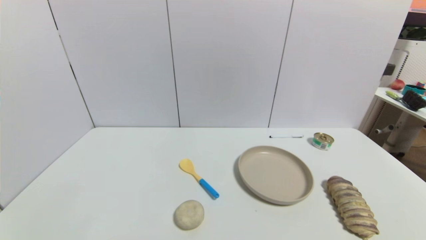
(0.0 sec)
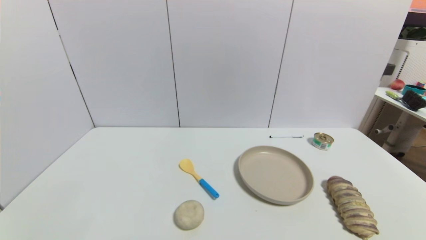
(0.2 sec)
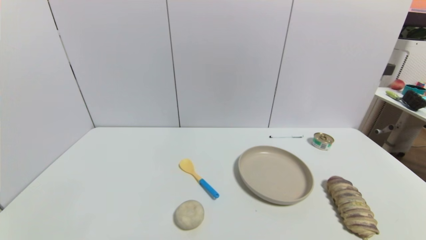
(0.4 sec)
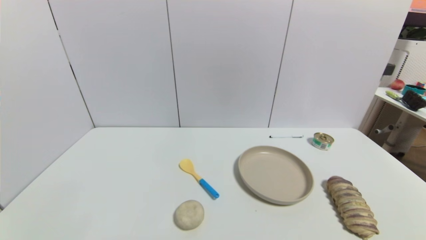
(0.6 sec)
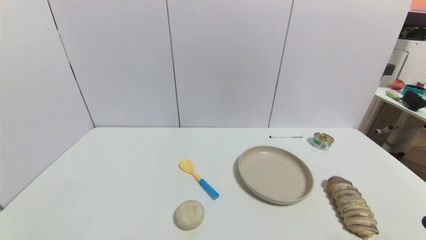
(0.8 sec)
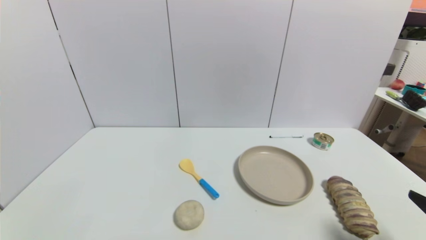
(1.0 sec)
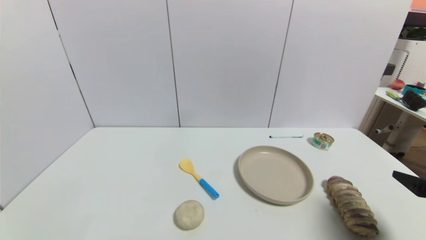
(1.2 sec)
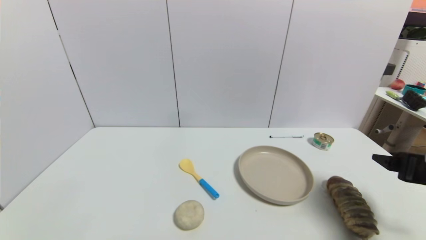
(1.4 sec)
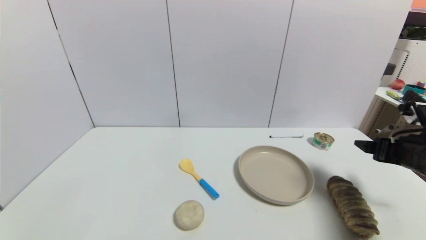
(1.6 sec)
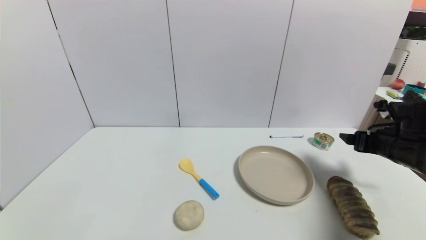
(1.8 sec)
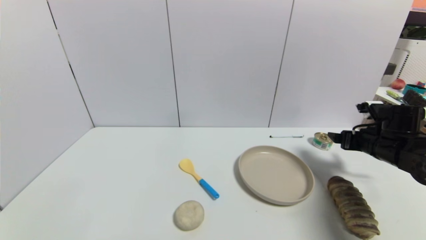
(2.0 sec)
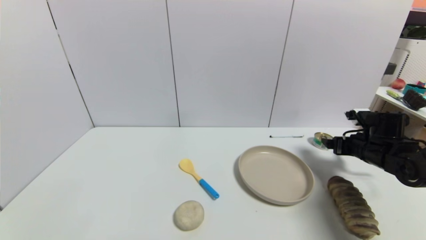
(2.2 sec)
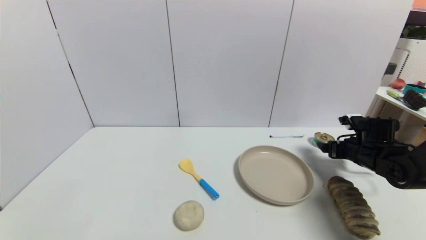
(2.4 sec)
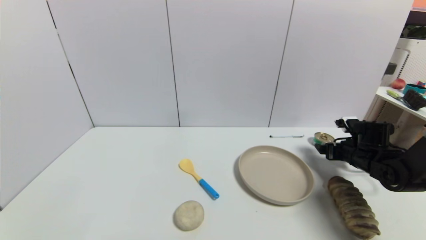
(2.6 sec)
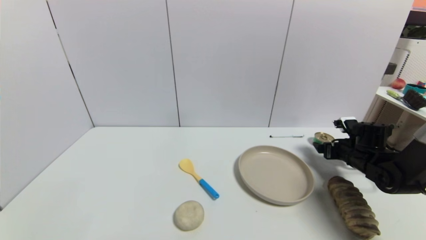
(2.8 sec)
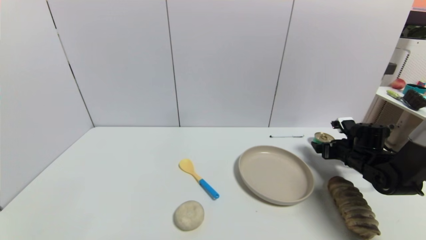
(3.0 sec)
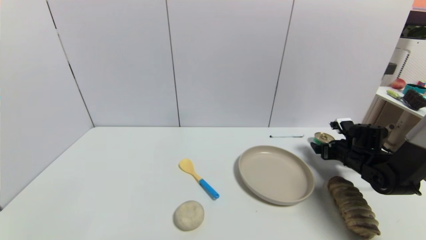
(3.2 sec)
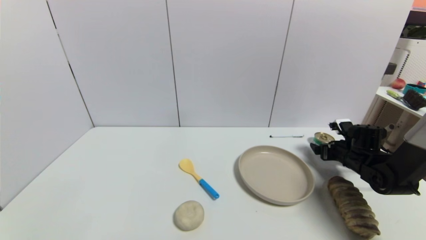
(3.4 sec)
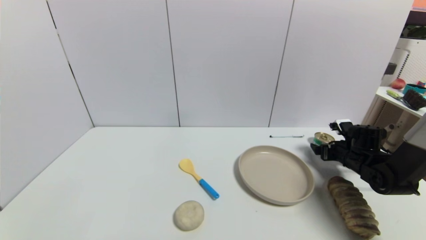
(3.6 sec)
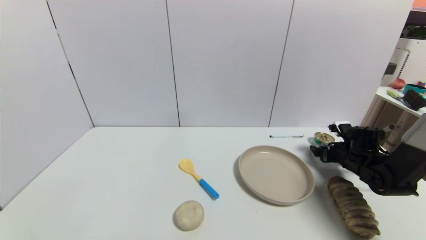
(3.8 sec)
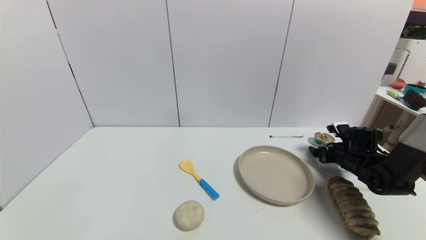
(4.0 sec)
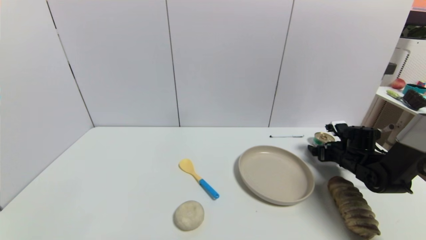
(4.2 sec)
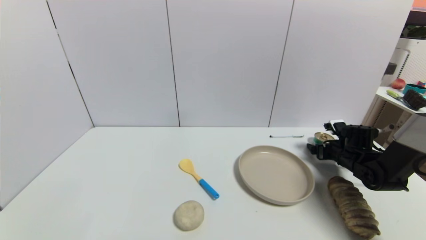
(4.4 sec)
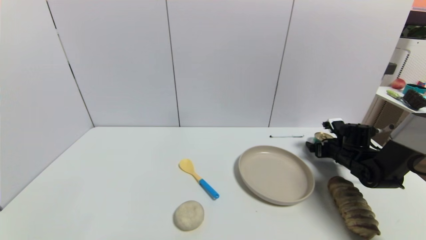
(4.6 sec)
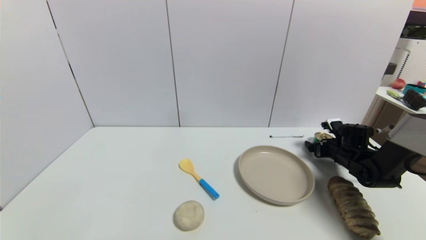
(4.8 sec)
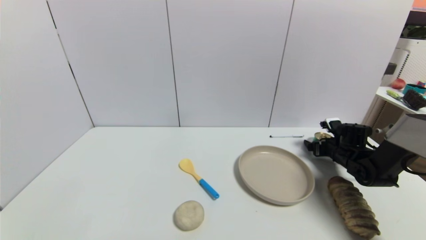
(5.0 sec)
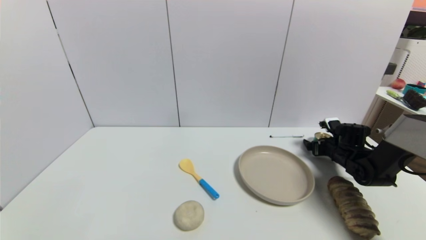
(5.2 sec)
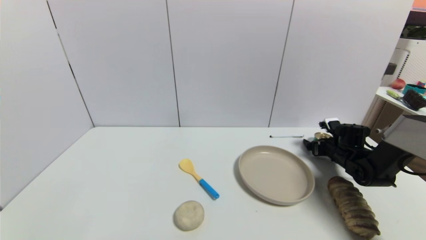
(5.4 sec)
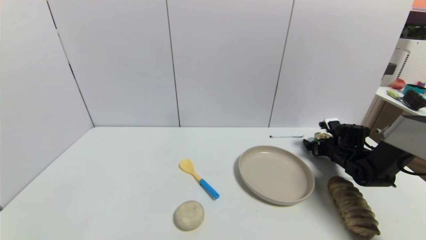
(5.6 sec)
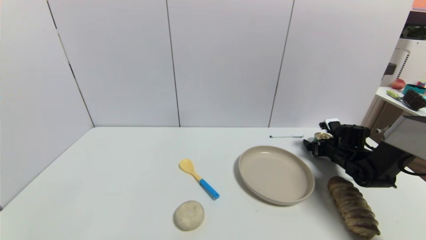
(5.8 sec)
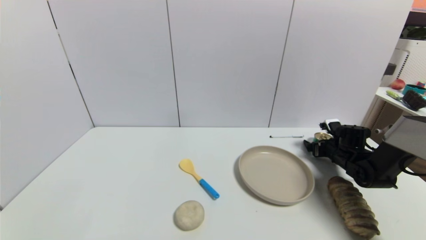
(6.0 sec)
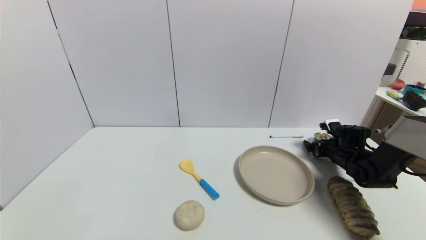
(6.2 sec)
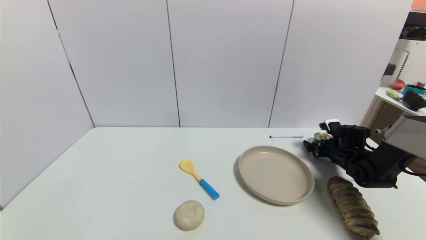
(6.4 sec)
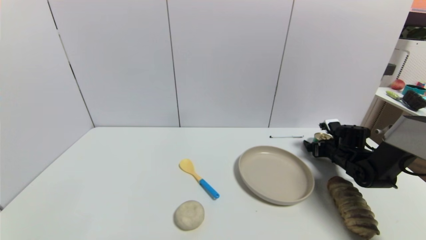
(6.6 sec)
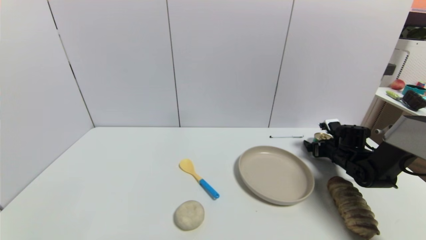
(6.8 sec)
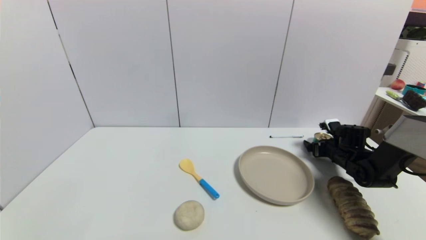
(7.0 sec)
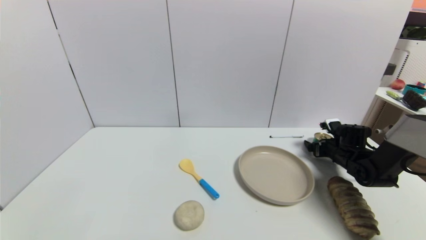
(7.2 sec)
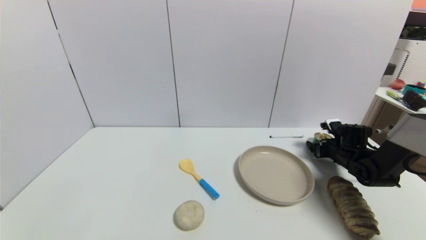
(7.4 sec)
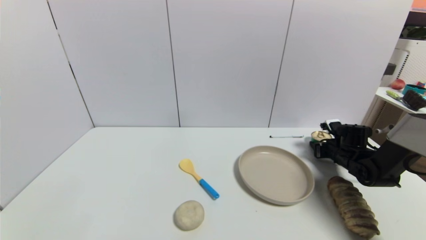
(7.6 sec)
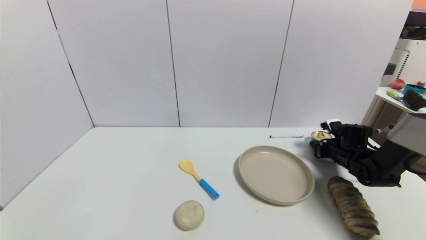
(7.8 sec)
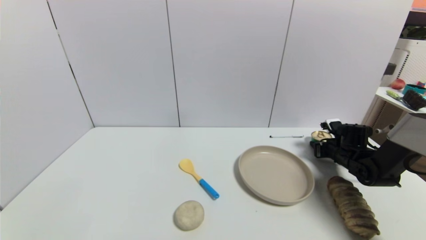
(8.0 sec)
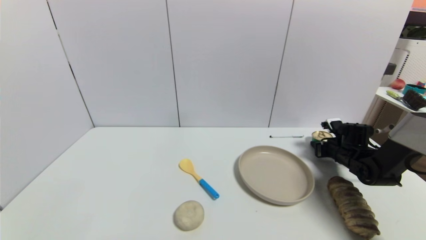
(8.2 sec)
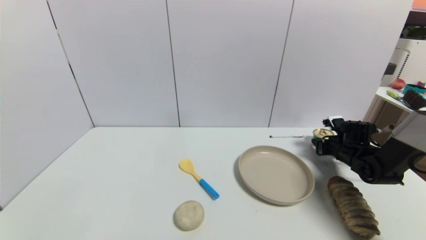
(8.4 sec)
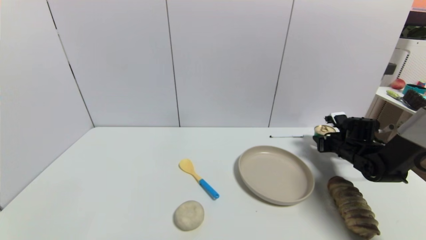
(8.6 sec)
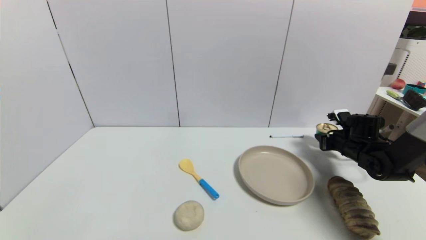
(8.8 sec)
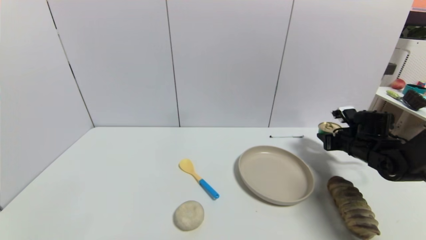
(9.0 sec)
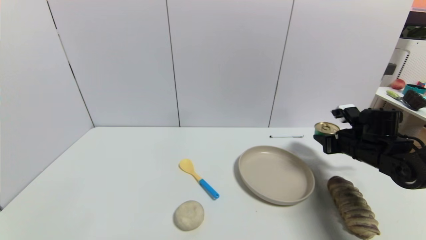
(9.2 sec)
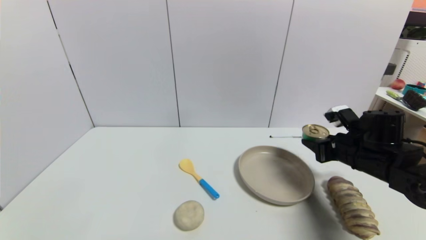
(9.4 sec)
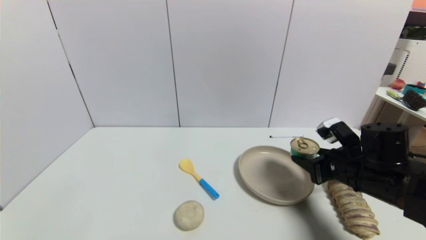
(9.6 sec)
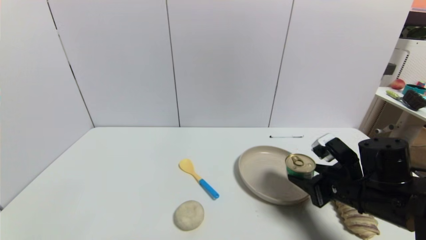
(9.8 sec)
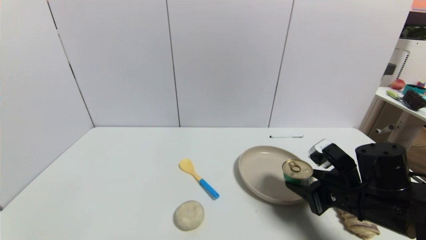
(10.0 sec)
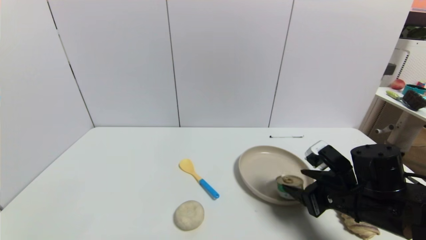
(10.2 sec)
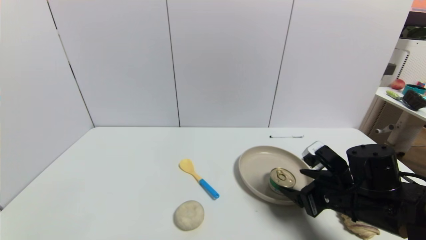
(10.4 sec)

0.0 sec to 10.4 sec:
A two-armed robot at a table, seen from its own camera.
Task of the whole recording: use a gripper to pick the target object and place on the brown plate.
Step, 0.0 sec to 7.6 sec: Grasp the tin with the right gripper.
0.0 sec to 1.4 sec: The right gripper heads forward and upward, covering approximately 25 cm.
1.4 sec to 3.0 sec: The right gripper shifts roughly 20 cm forward and downward.
3.0 sec to 6.0 sec: There are only small adjustments of the grippers.
6.0 sec to 7.4 sec: The right gripper closes up.
7.4 sec to 9.0 sec: The right gripper heads upward, covering roughly 5 cm, and closes.
9.0 sec to 10.4 sec: The right gripper shifts approximately 20 cm backward and to the left, and opens its fingers.

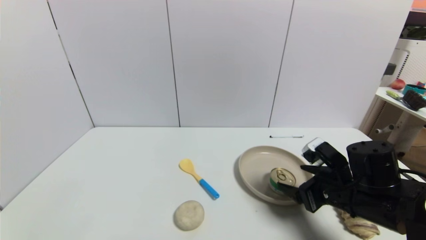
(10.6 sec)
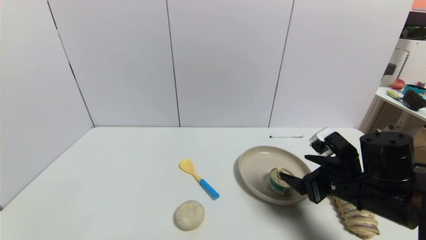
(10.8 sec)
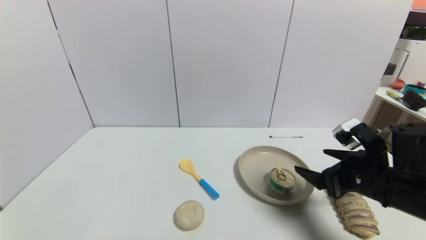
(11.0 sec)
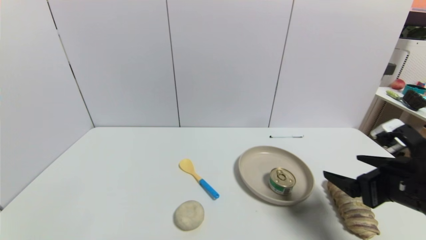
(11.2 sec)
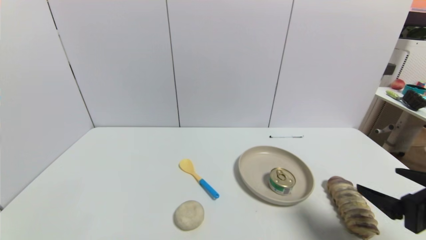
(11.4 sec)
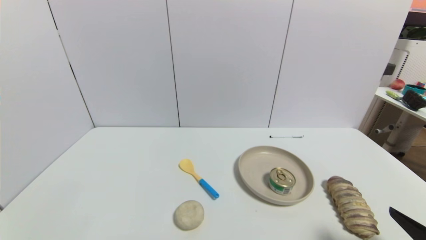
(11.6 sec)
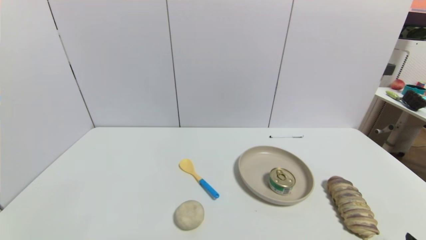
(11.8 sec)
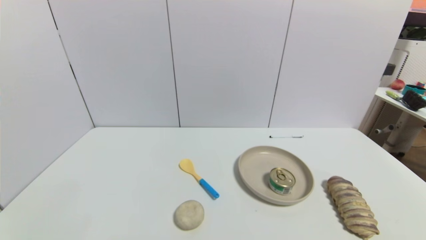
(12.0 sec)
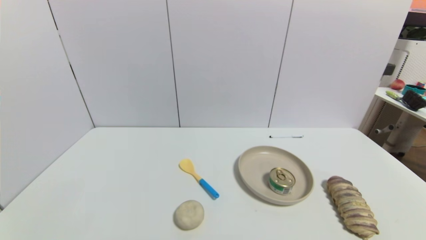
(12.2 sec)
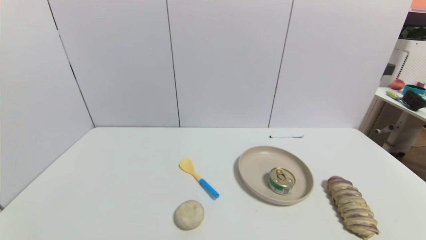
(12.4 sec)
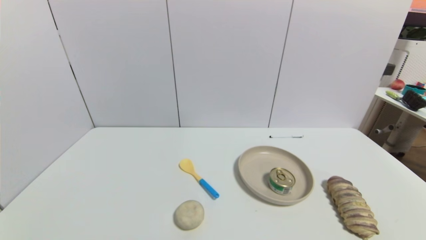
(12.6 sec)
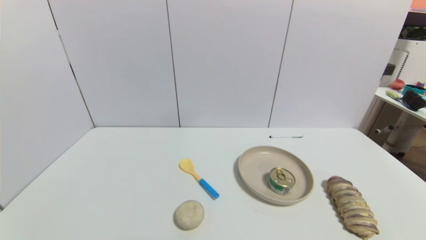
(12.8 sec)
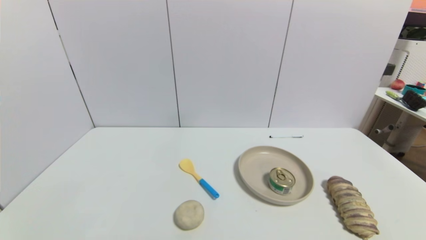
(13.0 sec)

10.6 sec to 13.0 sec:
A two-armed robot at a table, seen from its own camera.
Task of the whole recording: use a gripper to pick the target object and place on the brown plate.
10.6 sec to 11.8 sec: The right gripper goes some 20 cm backward and to the right.

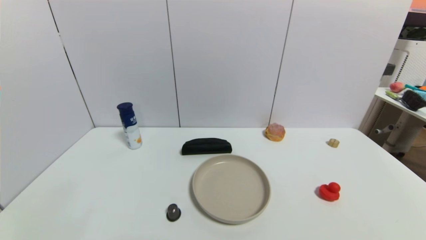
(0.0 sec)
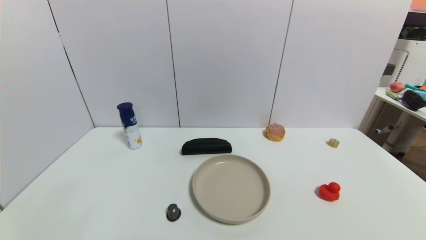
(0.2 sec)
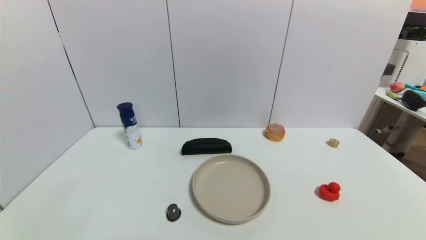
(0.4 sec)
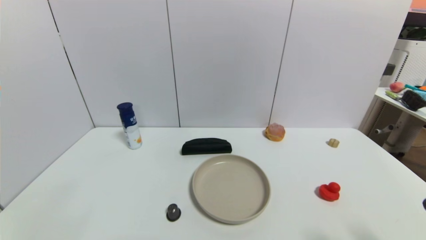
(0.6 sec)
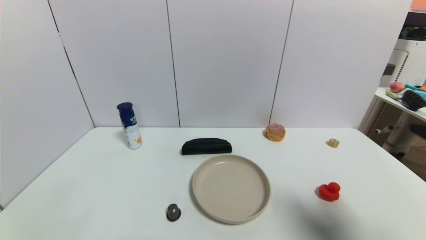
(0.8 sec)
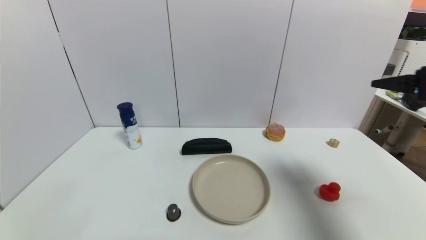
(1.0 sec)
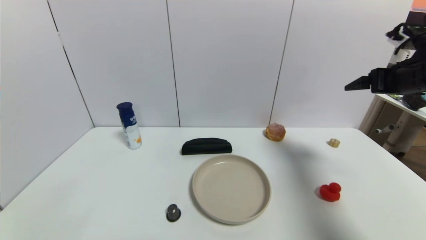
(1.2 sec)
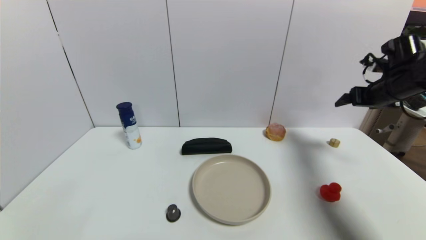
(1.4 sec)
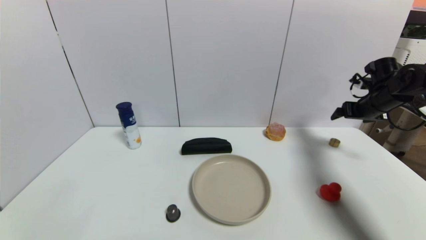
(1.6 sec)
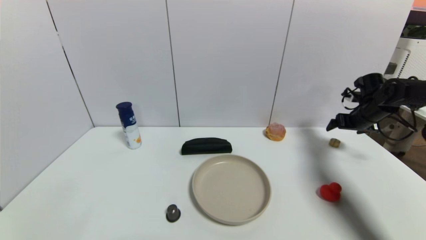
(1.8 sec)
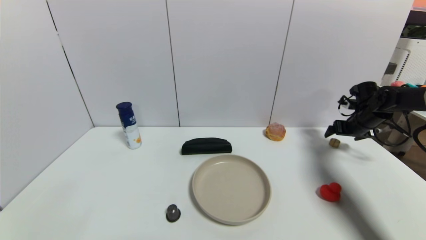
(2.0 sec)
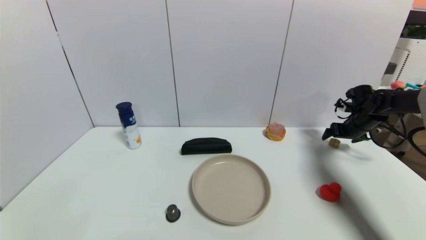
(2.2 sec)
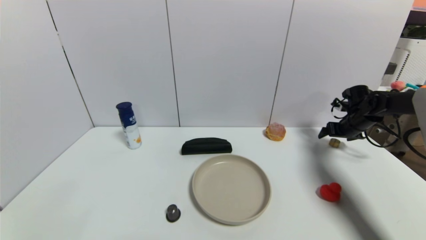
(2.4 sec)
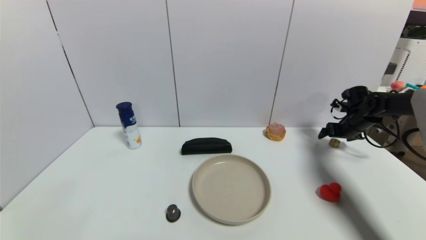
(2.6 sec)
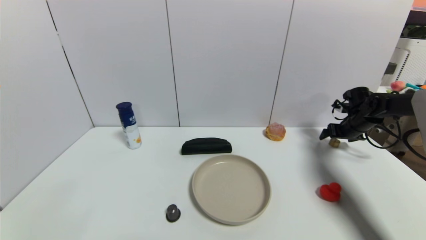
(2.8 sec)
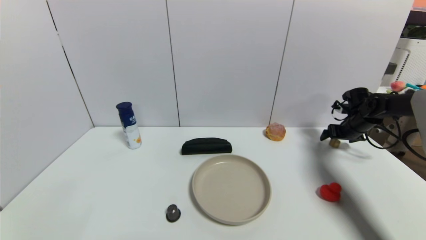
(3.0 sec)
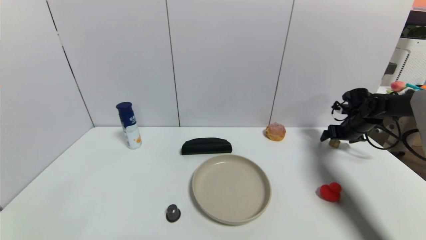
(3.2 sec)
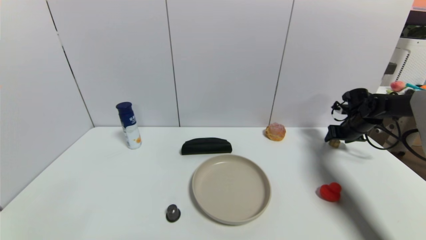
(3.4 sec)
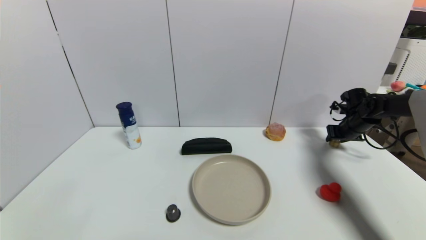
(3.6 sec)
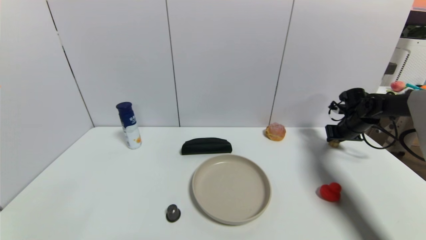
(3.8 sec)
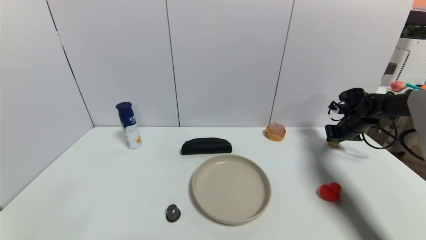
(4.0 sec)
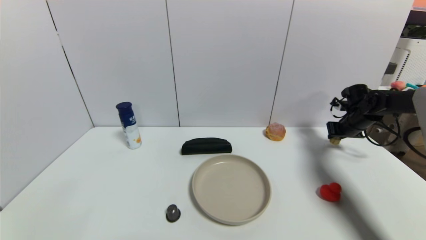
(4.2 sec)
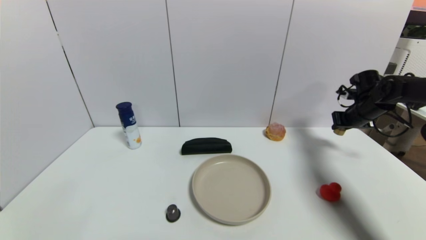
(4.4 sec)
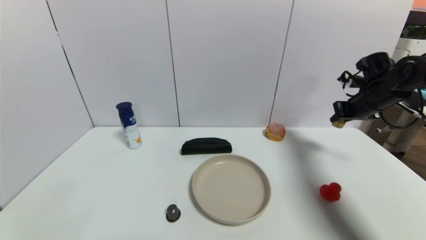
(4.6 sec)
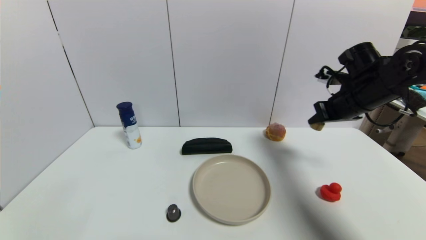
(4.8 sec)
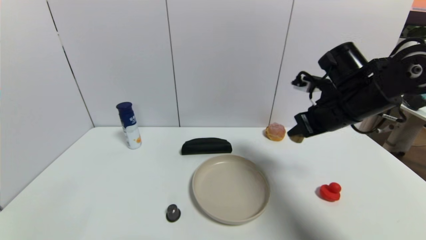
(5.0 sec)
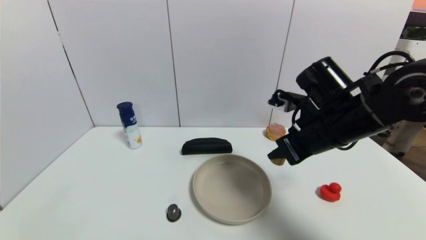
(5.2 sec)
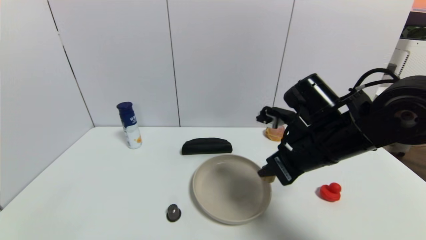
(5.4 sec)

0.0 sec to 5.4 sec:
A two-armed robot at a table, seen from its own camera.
Task of the whole recording: use a gripper to pick the target object and place on the brown plate.
Step, 0.0 sec to 3.8 sec: Grasp the round wooden block with the right gripper.
0.0 sec to 1.4 sec: The right gripper goes about 40 cm forward.
1.4 sec to 2.8 sec: The right gripper heads downward and forward, covering roughly 15 cm.
2.8 sec to 4.0 sec: The right gripper closes up.
4.0 sec to 5.4 sec: The right gripper travels to the left, backward and upward by roughly 35 cm.
